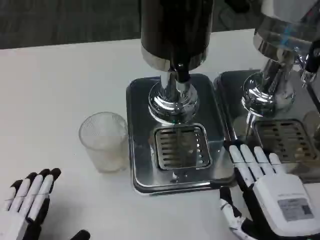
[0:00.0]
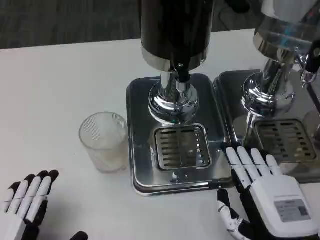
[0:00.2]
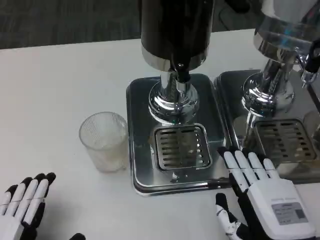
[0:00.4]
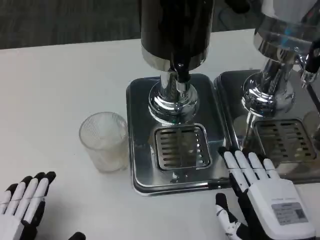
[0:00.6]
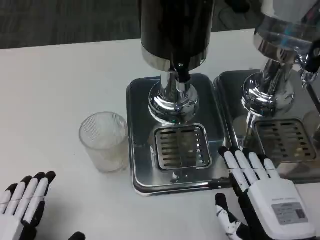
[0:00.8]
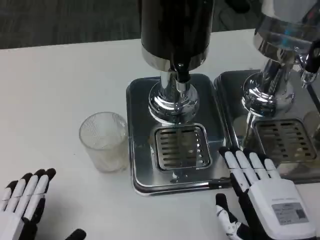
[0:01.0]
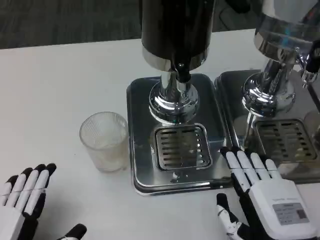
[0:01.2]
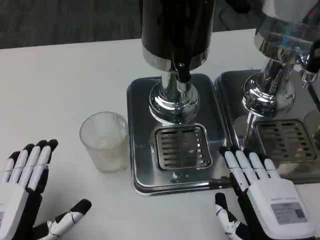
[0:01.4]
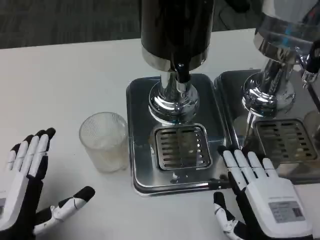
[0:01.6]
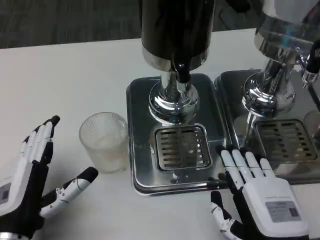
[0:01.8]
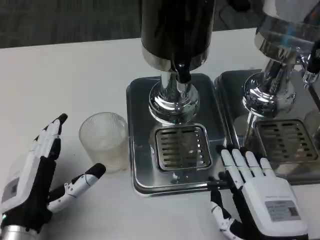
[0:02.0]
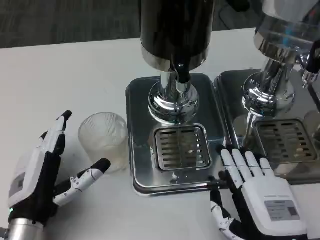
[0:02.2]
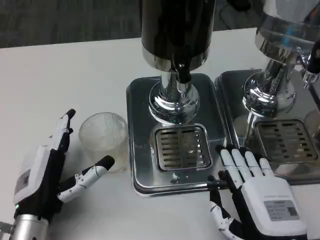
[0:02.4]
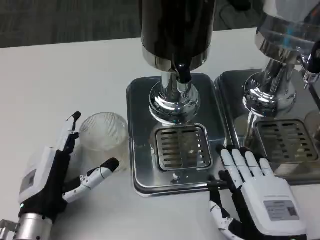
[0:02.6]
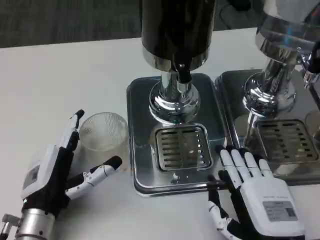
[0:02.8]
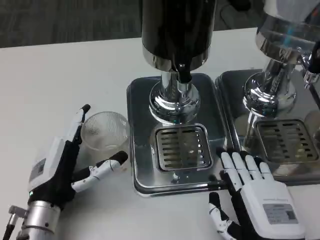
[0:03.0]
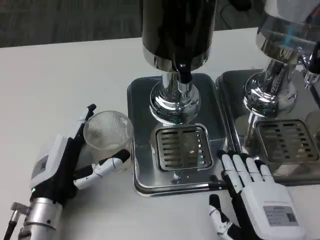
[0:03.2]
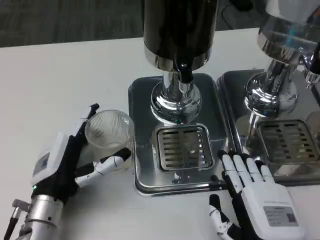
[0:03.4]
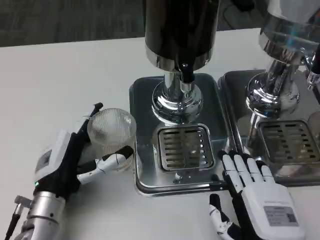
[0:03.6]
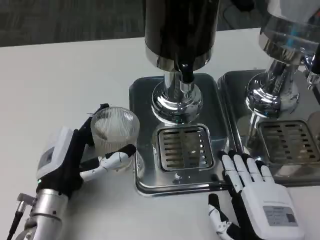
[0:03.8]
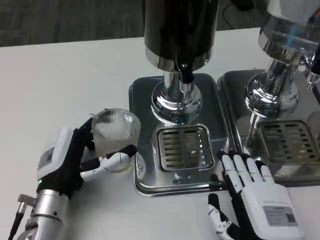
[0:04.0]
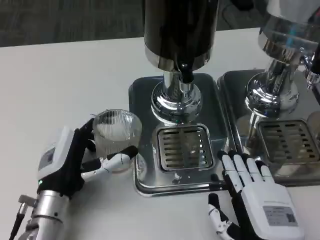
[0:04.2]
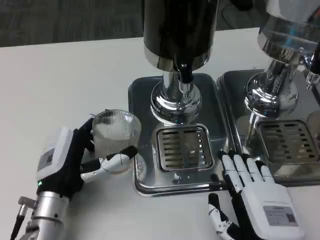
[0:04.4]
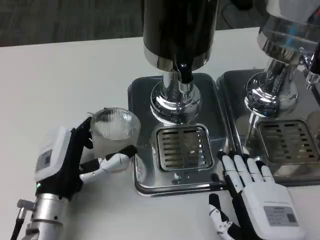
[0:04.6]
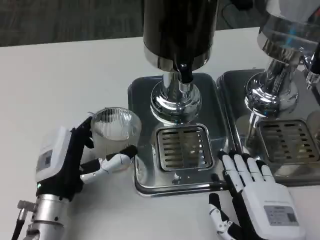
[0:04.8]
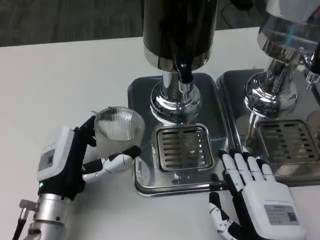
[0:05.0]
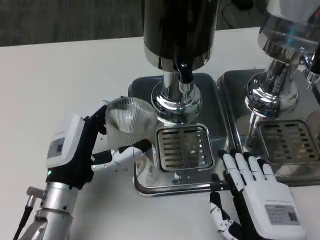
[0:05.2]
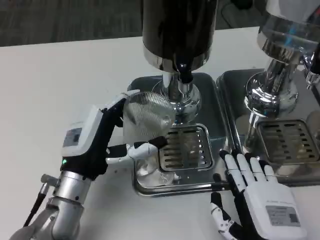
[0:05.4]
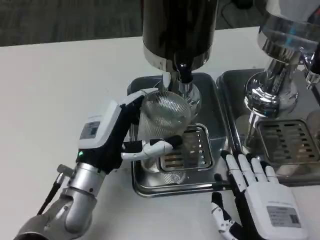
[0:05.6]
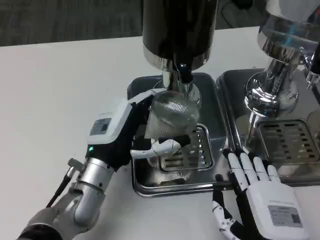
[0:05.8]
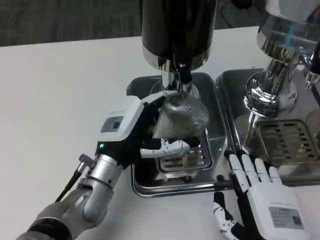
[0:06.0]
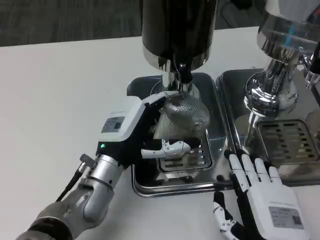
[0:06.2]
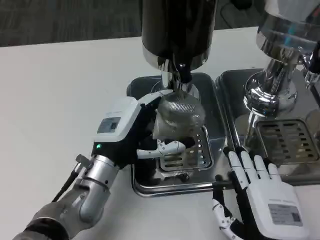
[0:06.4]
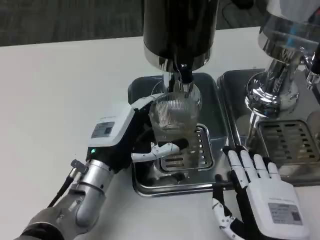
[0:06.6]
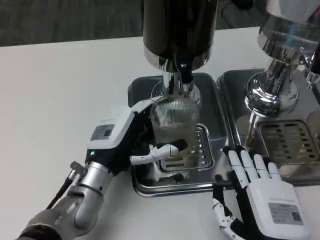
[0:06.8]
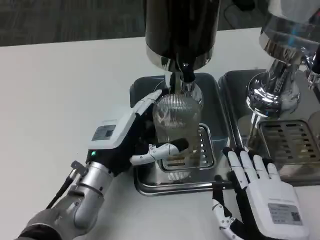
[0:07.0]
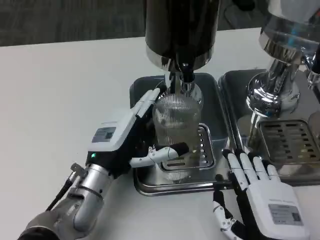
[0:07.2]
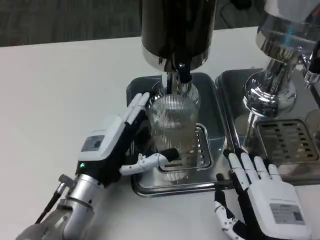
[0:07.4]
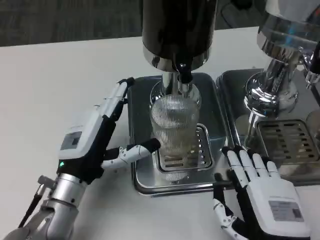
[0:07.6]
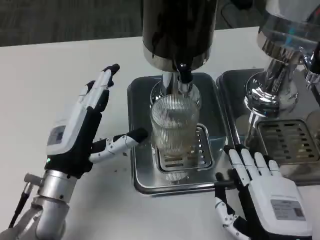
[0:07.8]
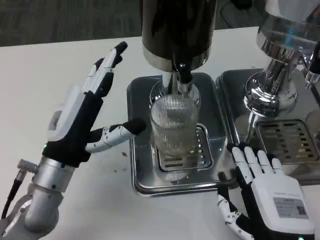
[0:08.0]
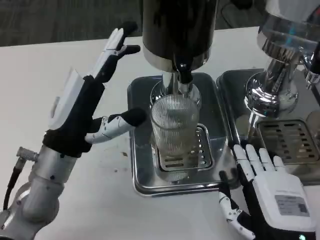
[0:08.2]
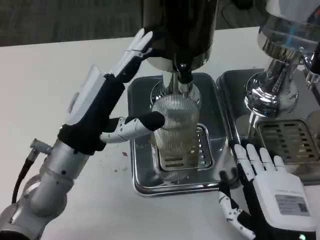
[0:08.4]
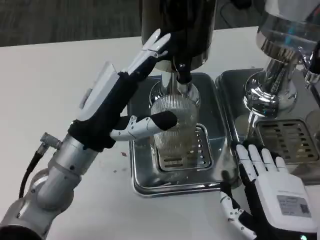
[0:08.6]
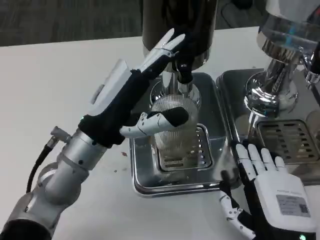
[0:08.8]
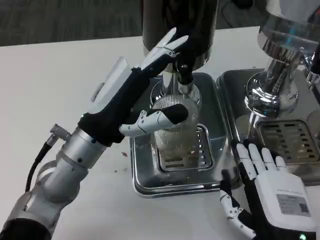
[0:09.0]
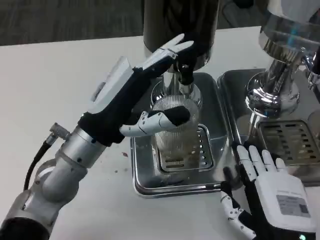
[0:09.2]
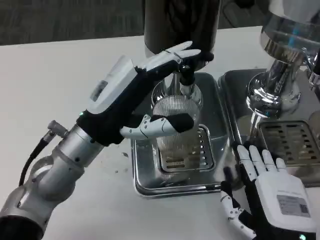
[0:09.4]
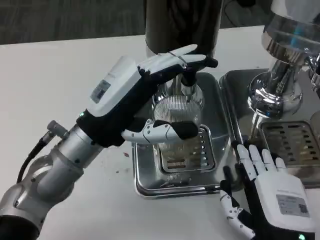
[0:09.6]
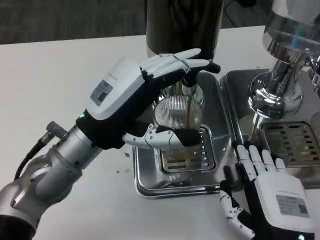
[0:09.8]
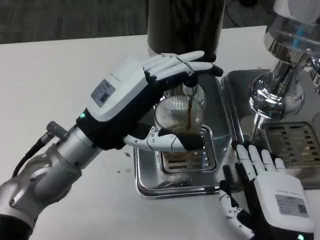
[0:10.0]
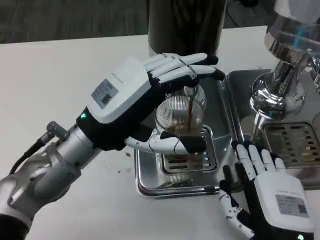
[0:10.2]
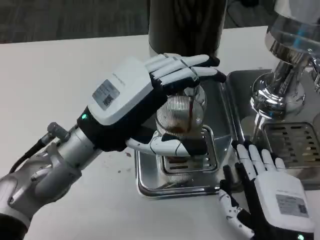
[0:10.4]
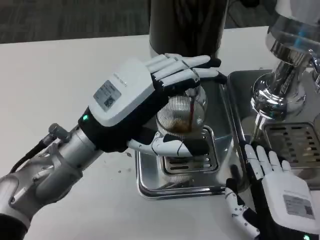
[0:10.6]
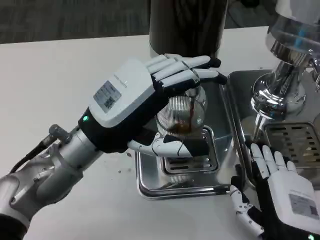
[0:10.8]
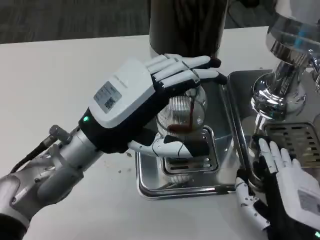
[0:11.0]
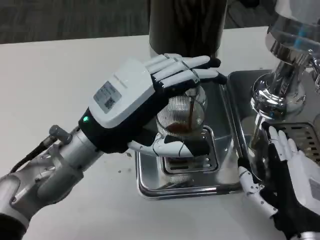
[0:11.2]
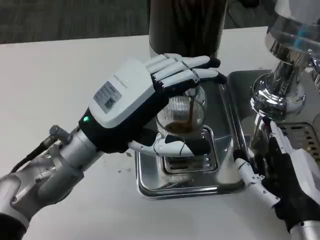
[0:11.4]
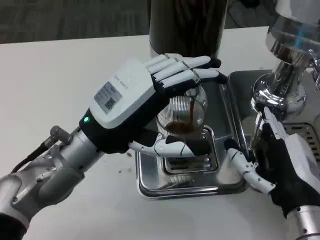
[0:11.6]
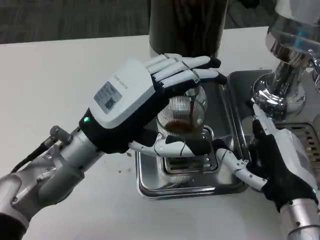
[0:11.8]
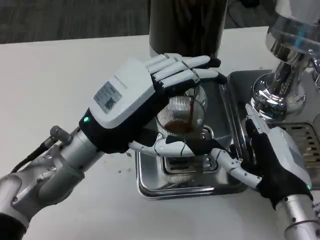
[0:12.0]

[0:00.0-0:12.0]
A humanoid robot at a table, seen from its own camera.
Task of the whole recording: Grasp the cup under the faucet to collect the drink, then remove the cup.
0:00.0 to 0:01.6: The left hand travels forward by about 5 cm.
0:01.6 to 0:03.0: The left hand moves forward, some 10 cm.
0:03.0 to 0:04.4: There are only small adjustments of the hands.
0:04.4 to 0:06.0: The left hand is displaced to the right and forward by some 10 cm.
0:06.0 to 0:07.6: The left hand heads to the left, covering roughly 5 cm.
0:07.6 to 0:09.0: The left hand heads upward, covering approximately 10 cm.
0:10.4 to 0:12.0: The right hand heads forward, covering approximately 5 cm.

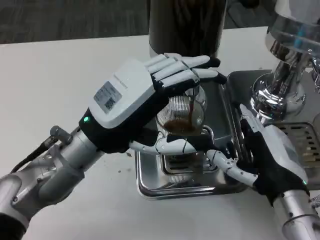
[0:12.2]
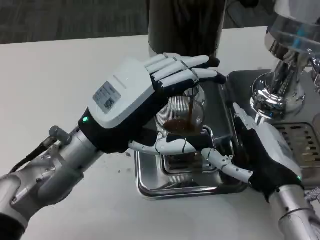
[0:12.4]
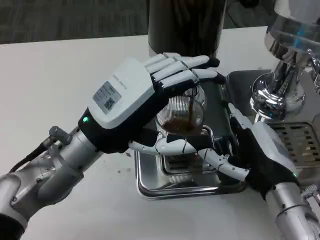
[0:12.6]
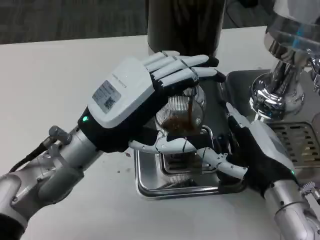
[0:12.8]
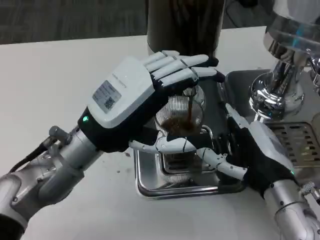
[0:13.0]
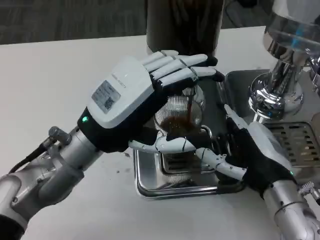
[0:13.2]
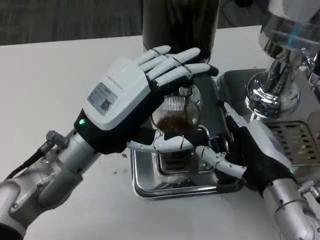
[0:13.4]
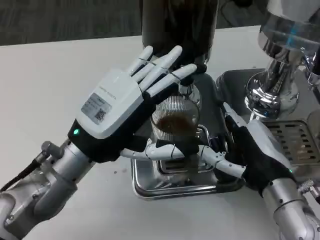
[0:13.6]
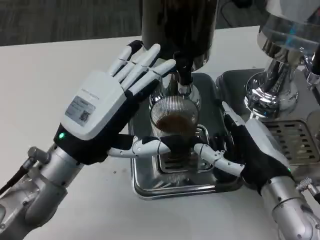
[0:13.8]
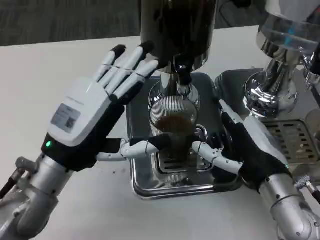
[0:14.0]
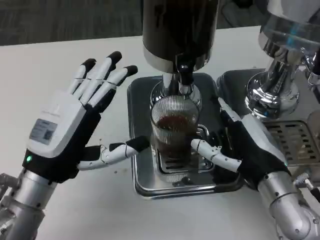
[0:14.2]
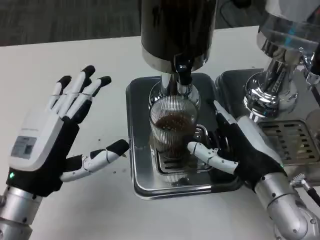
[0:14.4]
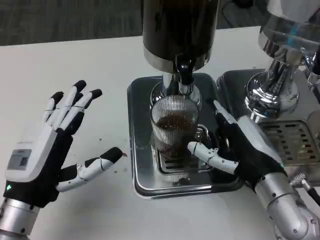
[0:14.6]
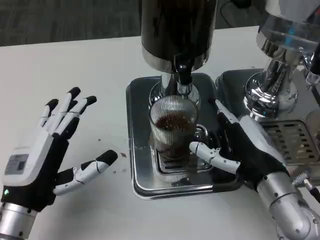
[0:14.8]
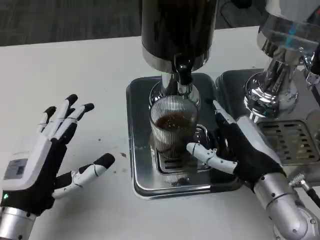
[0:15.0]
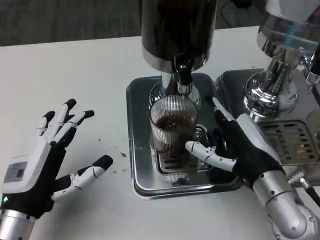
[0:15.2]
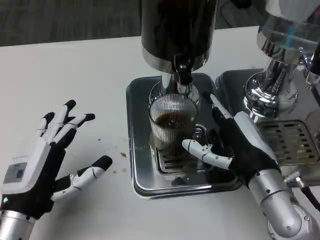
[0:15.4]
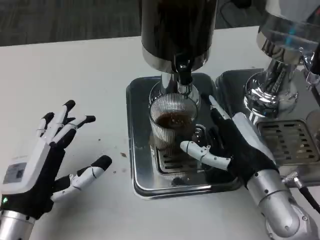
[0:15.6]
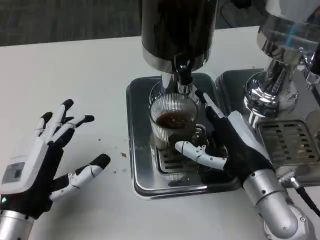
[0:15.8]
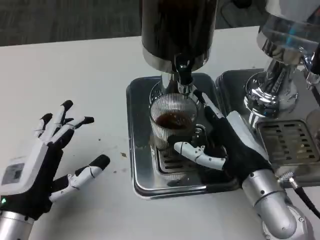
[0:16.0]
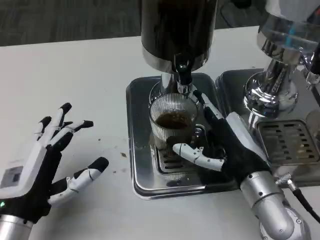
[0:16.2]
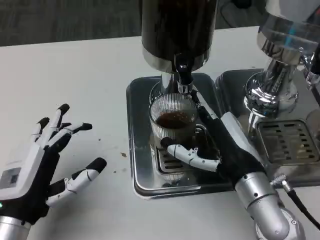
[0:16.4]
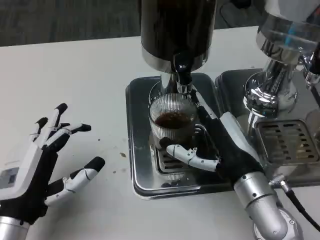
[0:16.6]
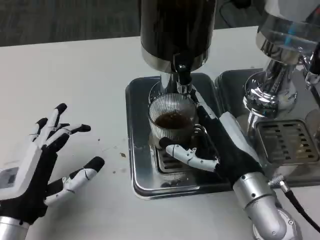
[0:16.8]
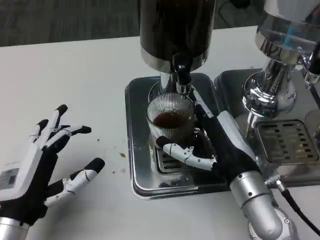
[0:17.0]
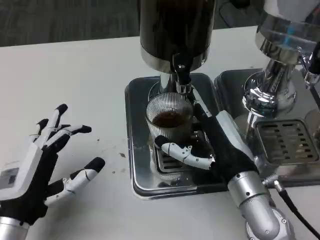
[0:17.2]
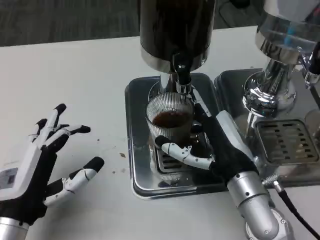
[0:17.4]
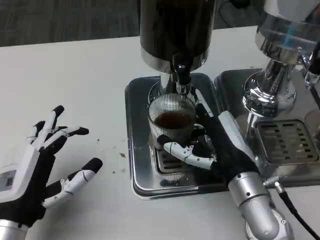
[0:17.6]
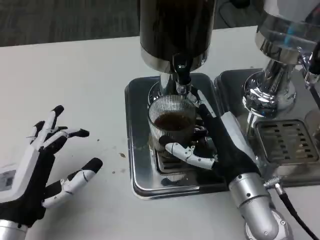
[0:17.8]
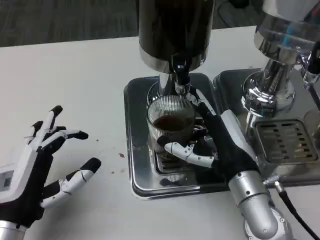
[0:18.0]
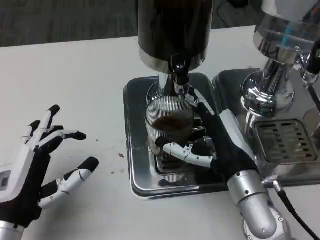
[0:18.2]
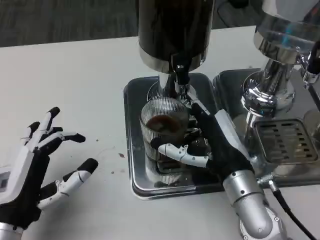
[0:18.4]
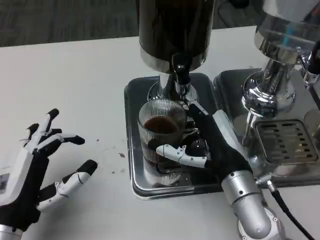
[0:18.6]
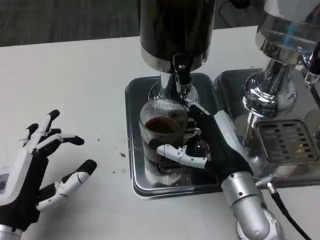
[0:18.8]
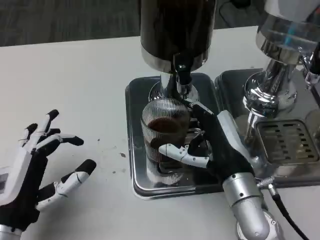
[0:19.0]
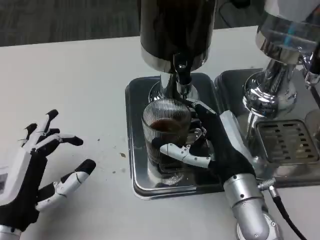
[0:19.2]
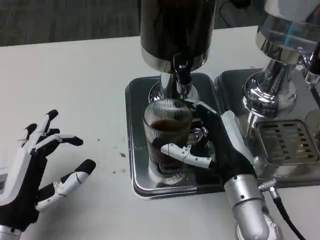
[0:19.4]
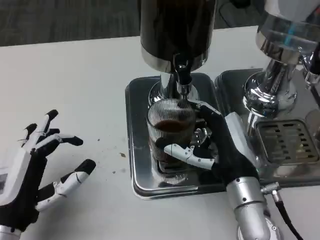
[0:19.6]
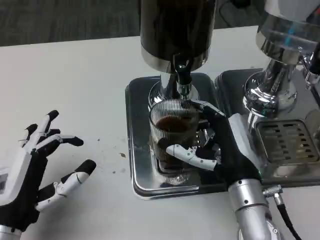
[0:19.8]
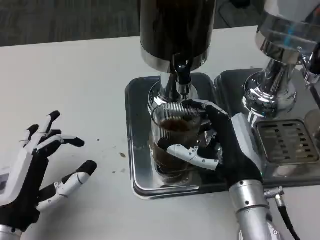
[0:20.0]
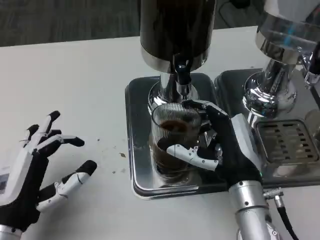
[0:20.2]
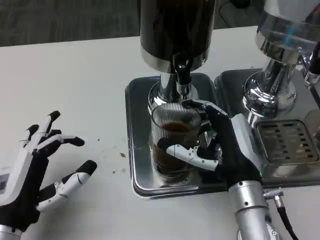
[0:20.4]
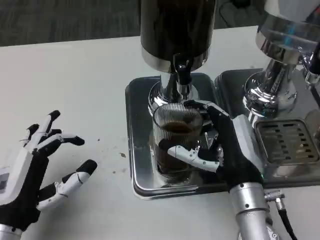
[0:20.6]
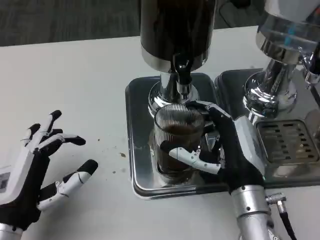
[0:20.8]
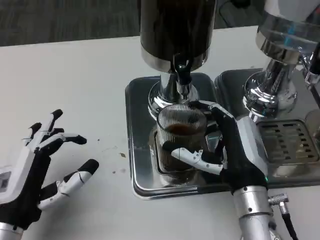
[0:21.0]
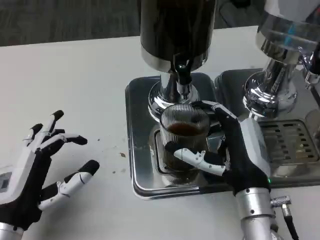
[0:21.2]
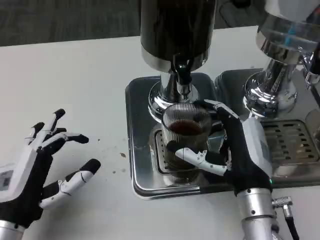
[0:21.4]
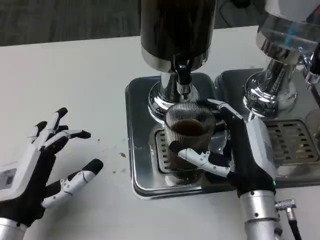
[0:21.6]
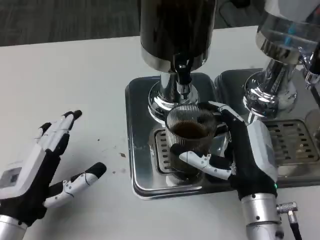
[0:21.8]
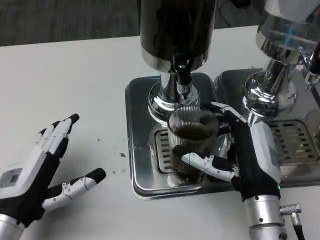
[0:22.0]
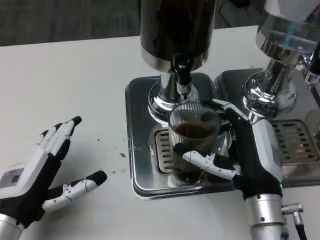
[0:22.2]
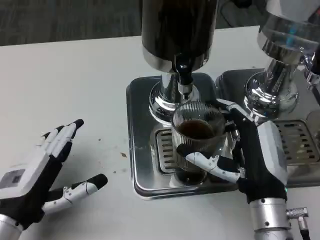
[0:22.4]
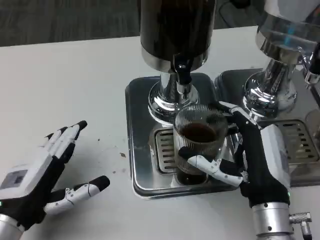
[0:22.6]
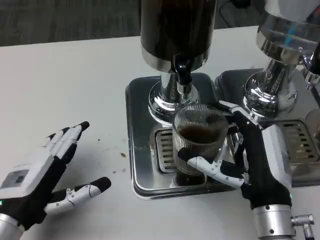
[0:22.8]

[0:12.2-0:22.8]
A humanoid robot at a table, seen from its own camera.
Task of the whole recording: Grasp the cup under the faucet to collect the drink, then remove the cup.
0:13.8 to 0:15.2: The left hand goes some 10 cm downward, backward and to the left.
0:15.2 to 0:16.8: The hands move only a little.
0:16.8 to 0:18.2: Both hands stay put.
0:18.2 to 0:21.2: The hands stay close to where they were, moving slightly.
